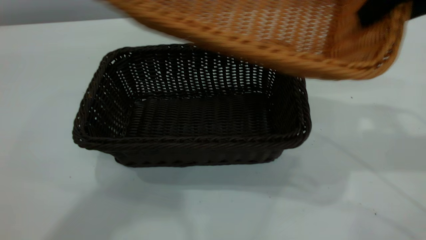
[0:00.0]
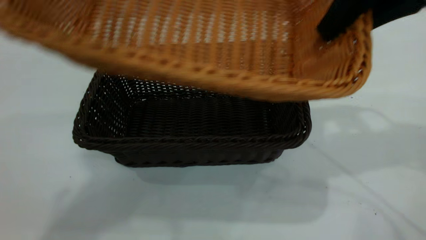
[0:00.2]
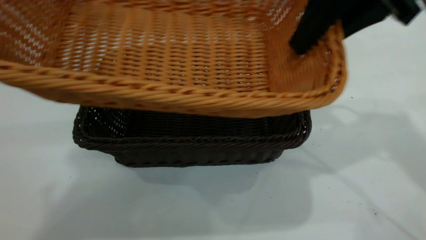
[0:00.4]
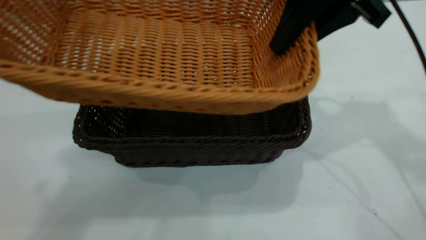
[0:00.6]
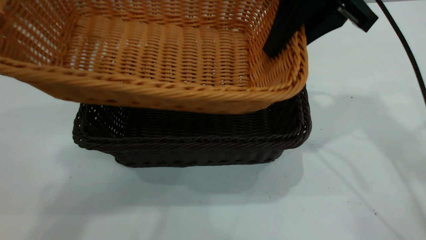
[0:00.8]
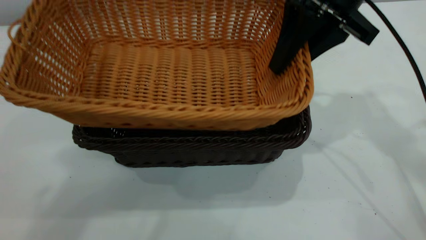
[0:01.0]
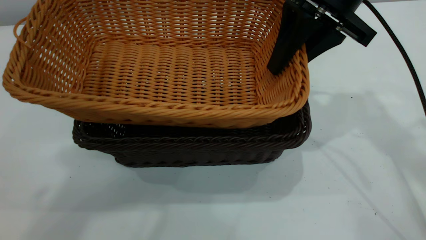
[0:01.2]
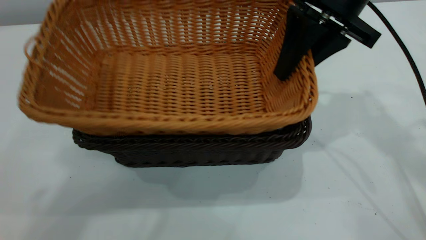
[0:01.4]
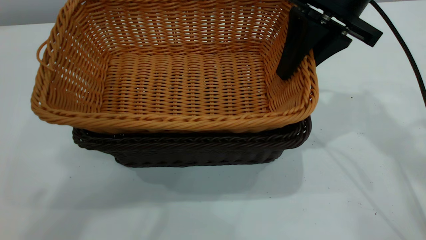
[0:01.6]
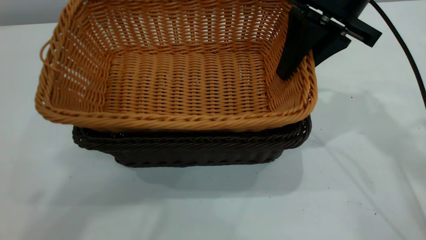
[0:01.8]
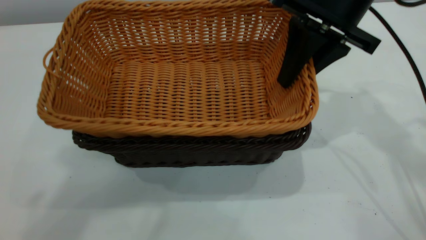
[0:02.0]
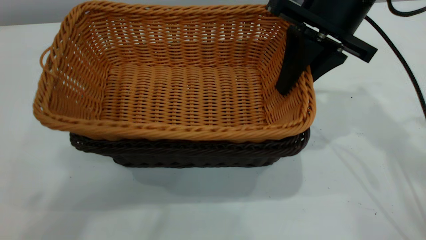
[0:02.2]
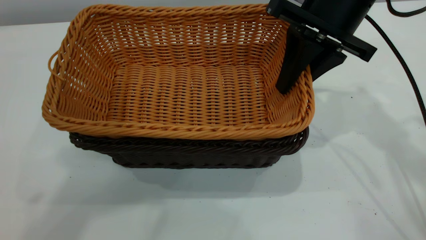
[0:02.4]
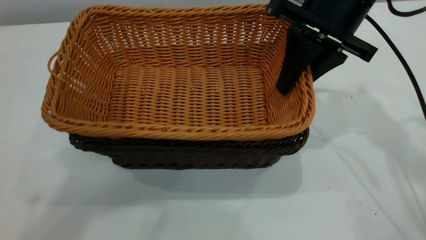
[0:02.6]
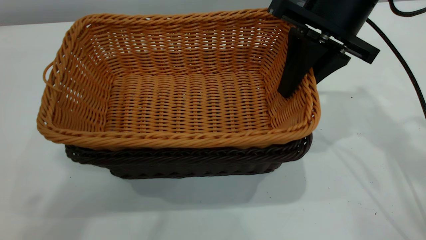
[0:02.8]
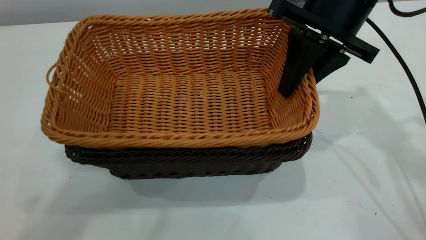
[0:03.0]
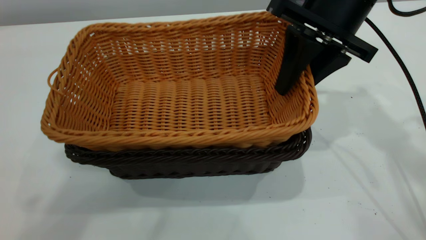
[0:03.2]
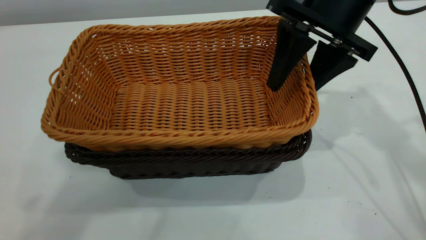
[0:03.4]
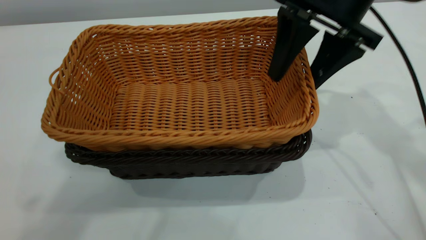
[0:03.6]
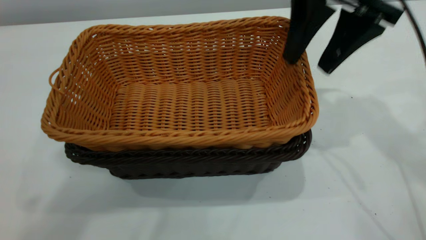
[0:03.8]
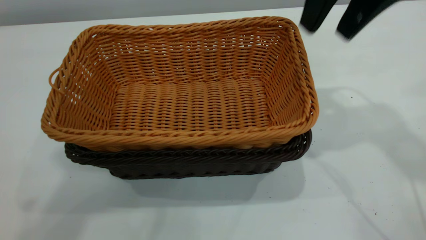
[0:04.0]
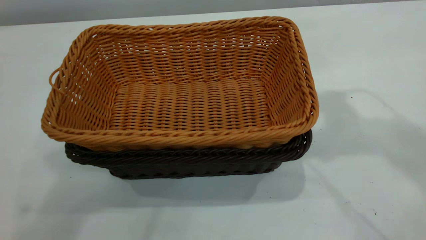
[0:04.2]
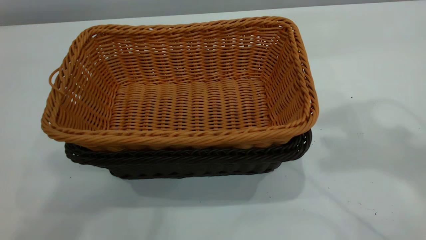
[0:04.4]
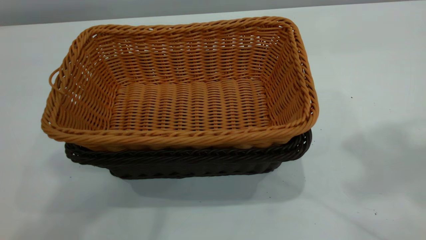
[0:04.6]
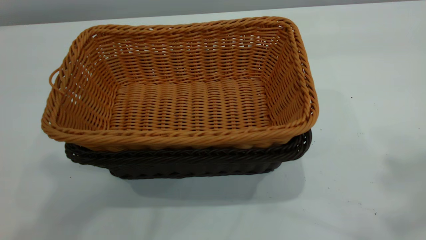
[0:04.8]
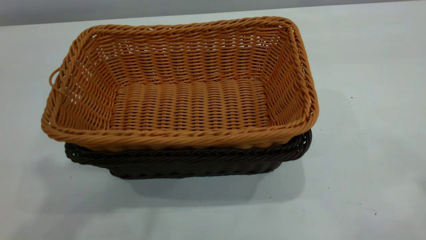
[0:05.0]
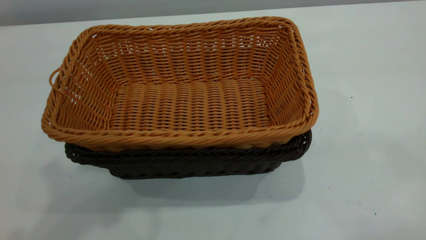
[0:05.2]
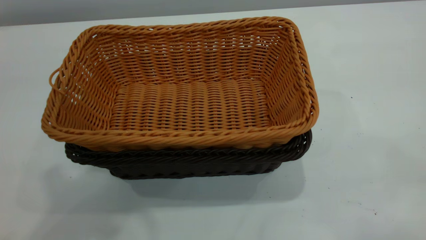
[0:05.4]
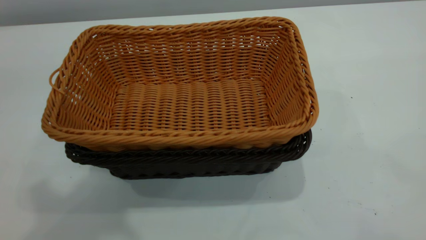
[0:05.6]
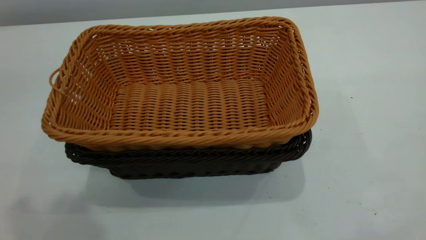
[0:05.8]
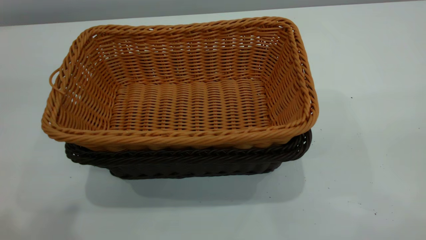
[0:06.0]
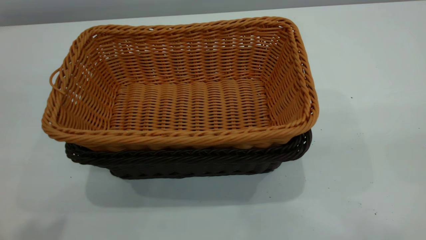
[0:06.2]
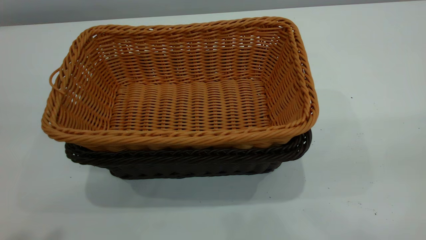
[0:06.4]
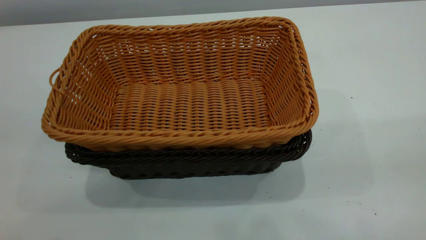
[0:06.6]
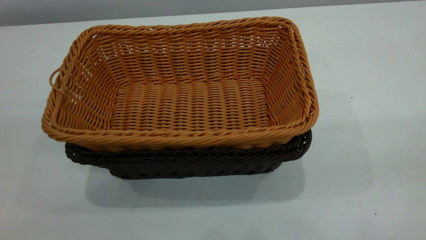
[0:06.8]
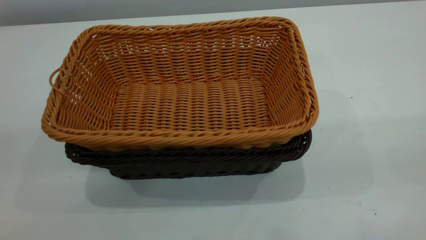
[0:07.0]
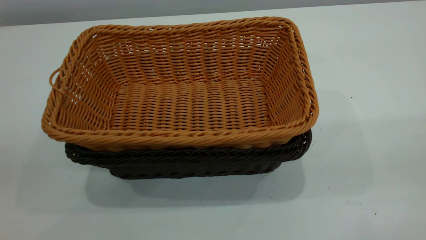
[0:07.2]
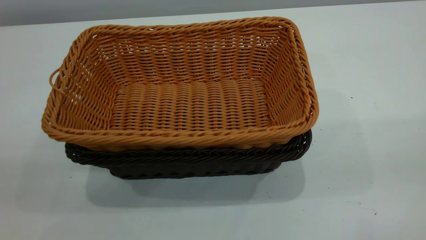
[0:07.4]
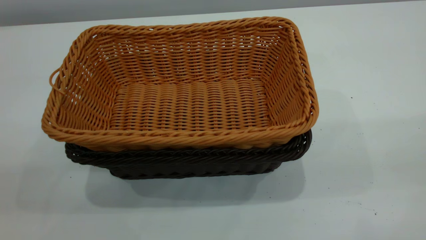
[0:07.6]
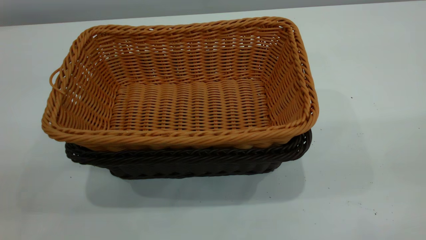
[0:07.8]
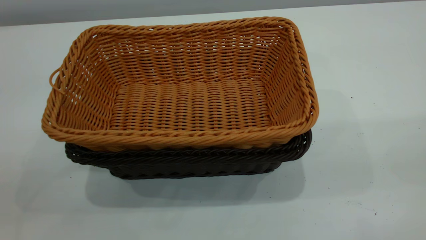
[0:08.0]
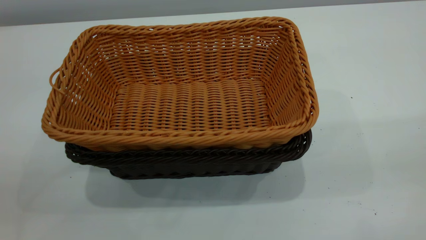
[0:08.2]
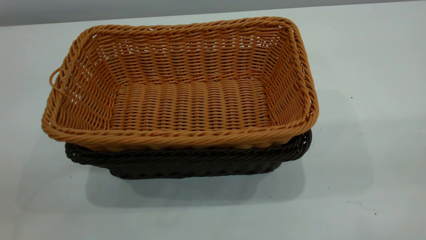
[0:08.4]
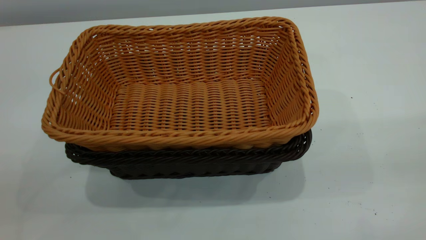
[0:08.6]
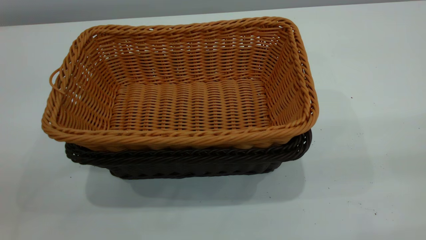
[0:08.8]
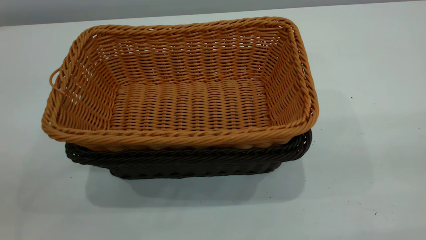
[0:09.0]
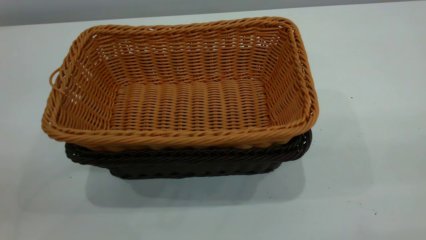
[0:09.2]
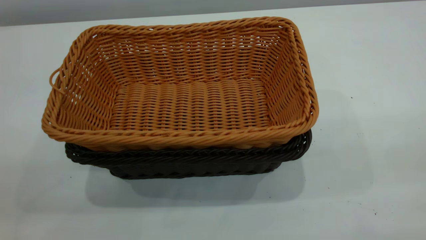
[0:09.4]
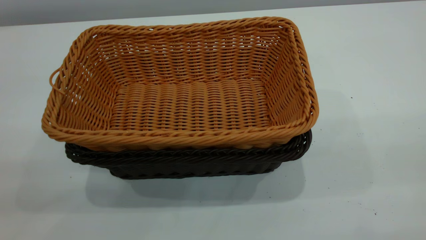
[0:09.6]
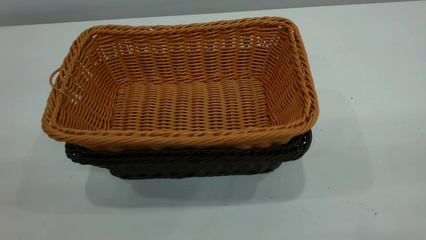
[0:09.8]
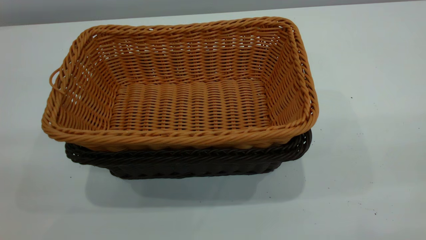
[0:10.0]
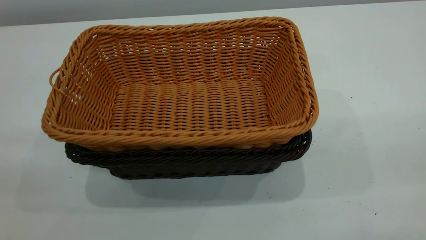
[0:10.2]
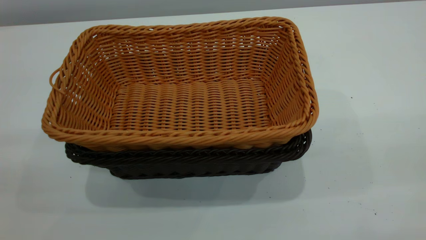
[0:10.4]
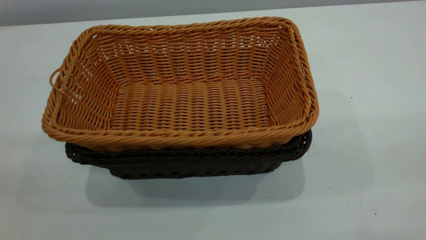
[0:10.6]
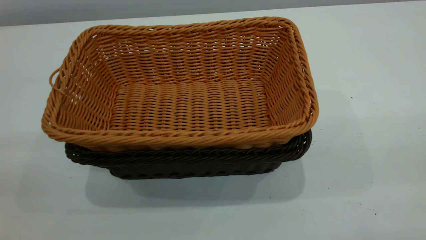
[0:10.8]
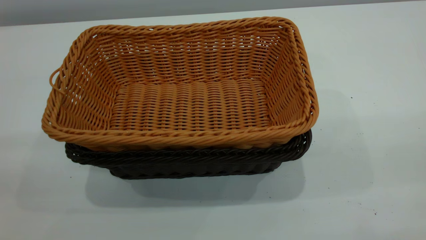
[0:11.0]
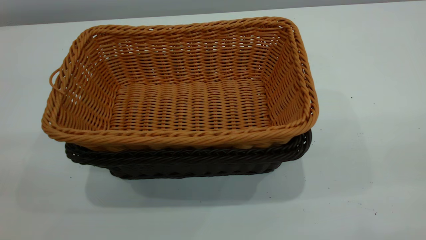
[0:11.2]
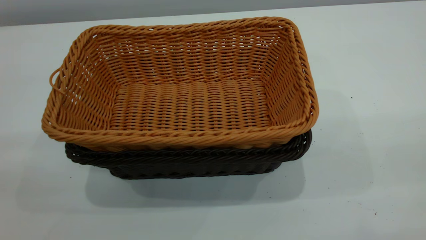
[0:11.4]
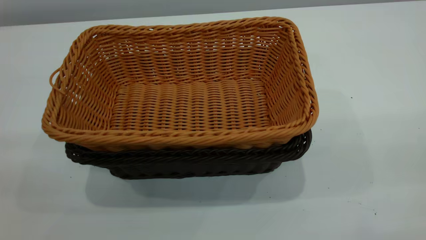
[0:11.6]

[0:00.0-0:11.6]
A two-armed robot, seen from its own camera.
Task of the whole recording: the left gripper grasp the black basket and place it in the center of the table, the right gripper grasp the brown basket and place it inside the black one.
Step, 0:00.0 to 0:04.0: Place the light basket on the dark basket.
0:00.0 to 0:01.4: The right gripper is displaced to the left, forward and downward by some 10 cm.
0:02.8 to 0:04.4: The right gripper moves upward, about 20 cm, and opens.
0:10.2 to 0:11.6: The two grippers keep their place.
